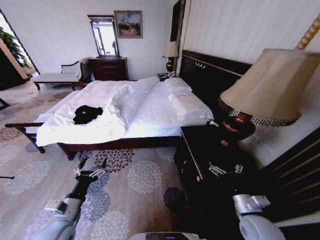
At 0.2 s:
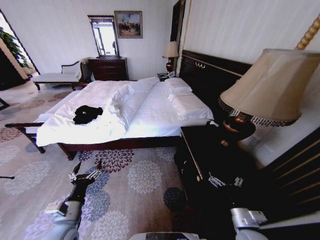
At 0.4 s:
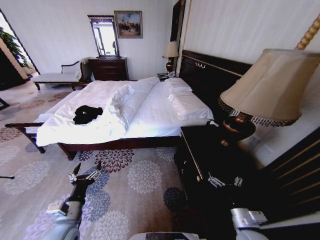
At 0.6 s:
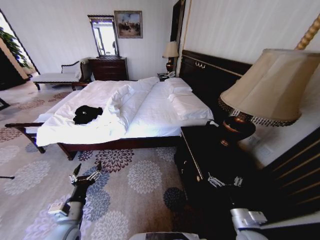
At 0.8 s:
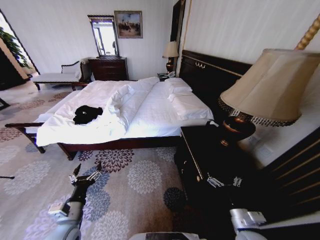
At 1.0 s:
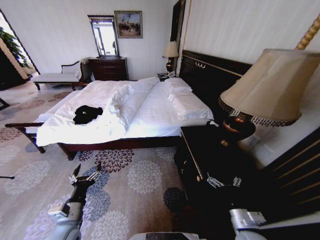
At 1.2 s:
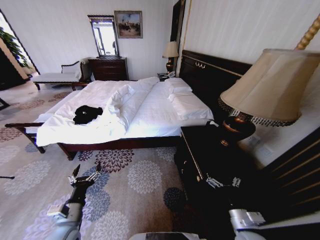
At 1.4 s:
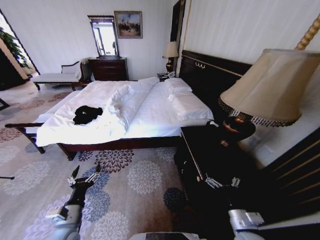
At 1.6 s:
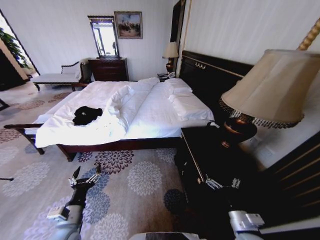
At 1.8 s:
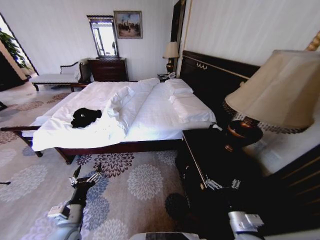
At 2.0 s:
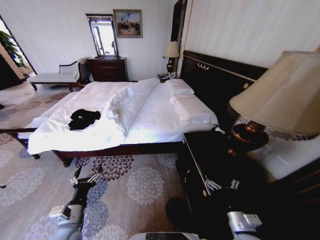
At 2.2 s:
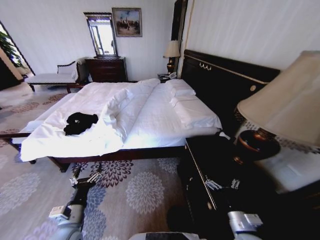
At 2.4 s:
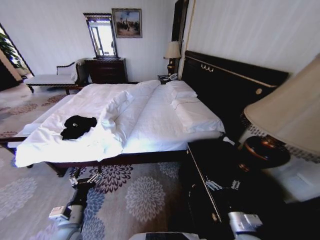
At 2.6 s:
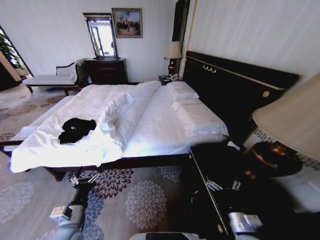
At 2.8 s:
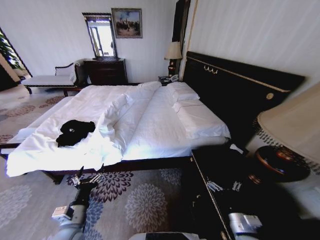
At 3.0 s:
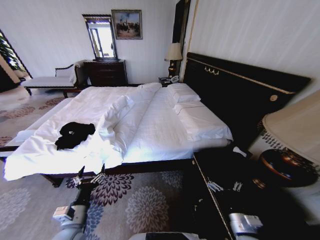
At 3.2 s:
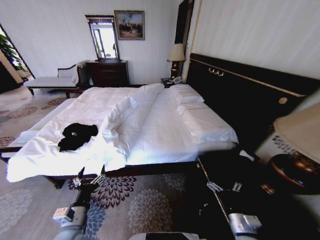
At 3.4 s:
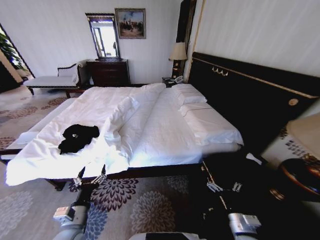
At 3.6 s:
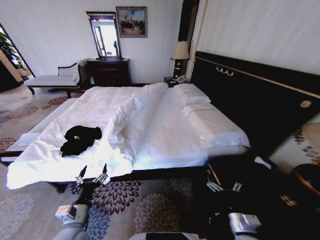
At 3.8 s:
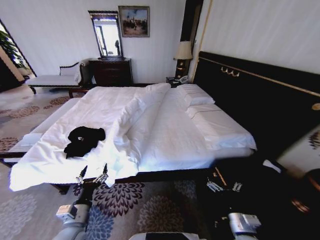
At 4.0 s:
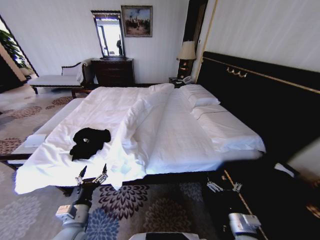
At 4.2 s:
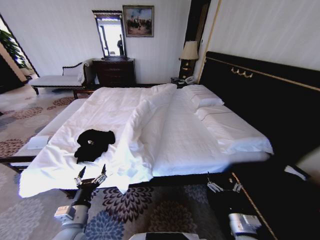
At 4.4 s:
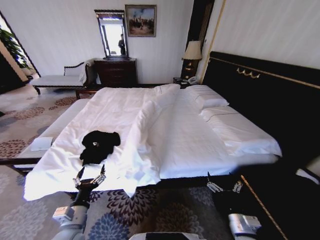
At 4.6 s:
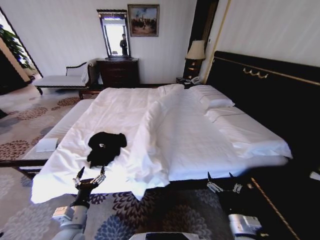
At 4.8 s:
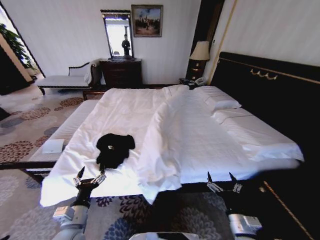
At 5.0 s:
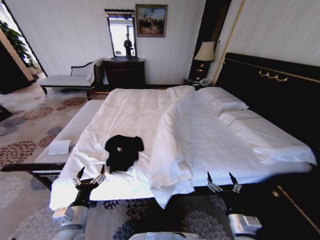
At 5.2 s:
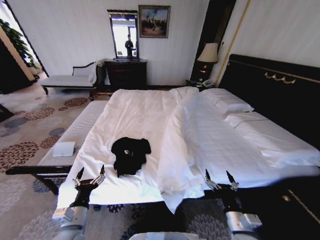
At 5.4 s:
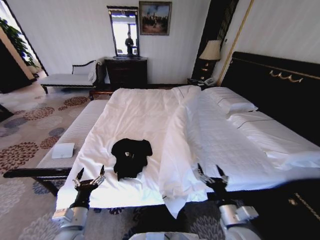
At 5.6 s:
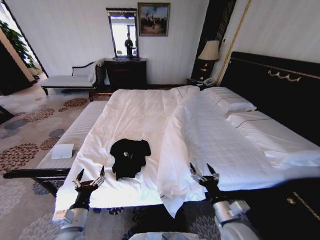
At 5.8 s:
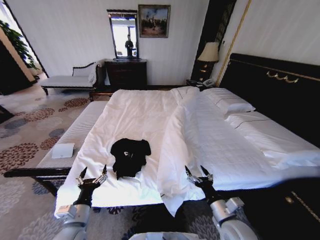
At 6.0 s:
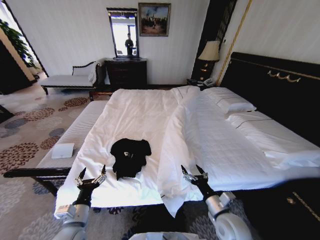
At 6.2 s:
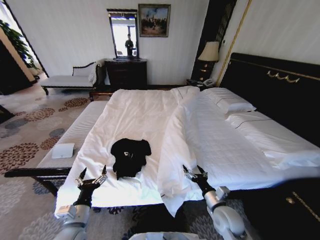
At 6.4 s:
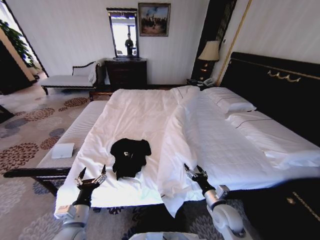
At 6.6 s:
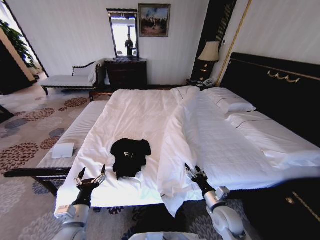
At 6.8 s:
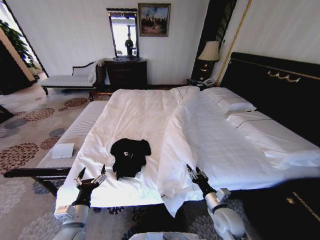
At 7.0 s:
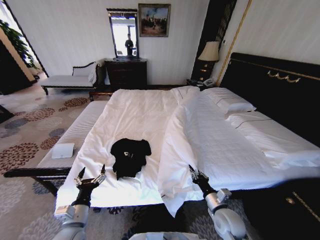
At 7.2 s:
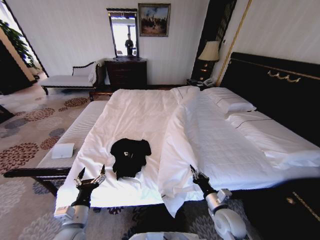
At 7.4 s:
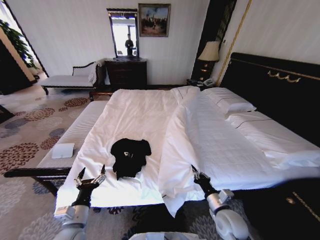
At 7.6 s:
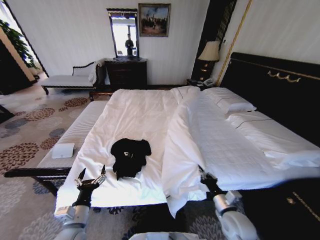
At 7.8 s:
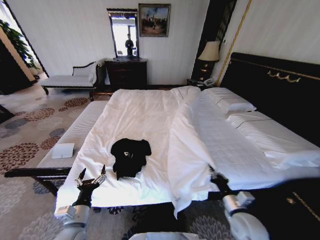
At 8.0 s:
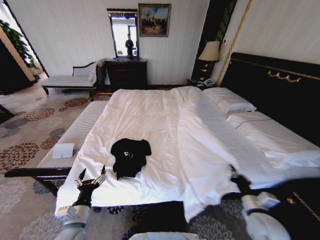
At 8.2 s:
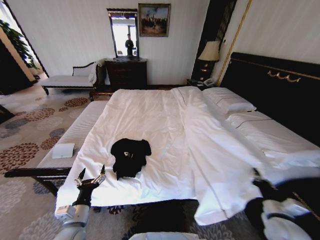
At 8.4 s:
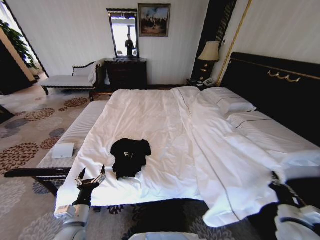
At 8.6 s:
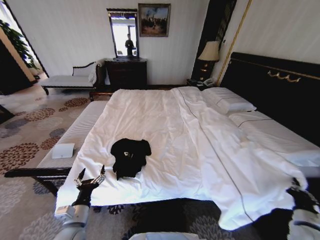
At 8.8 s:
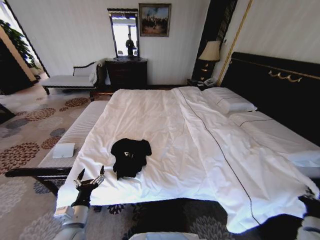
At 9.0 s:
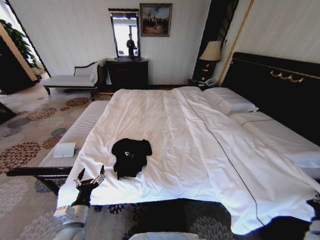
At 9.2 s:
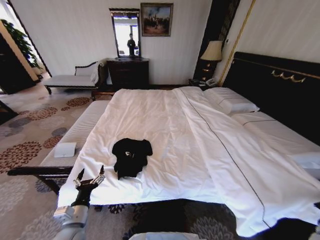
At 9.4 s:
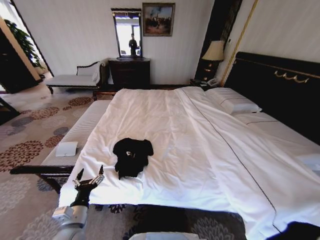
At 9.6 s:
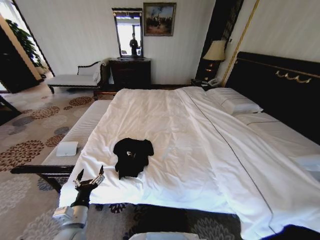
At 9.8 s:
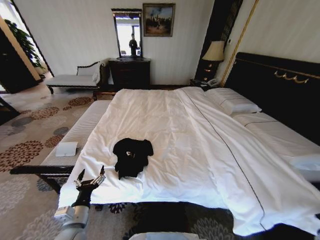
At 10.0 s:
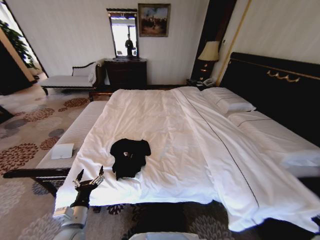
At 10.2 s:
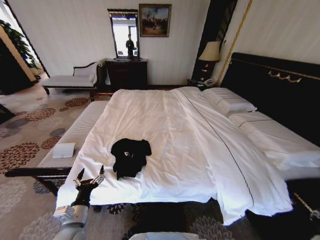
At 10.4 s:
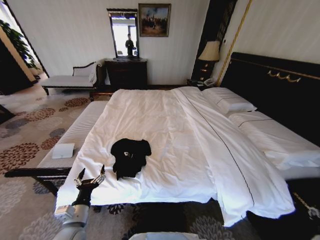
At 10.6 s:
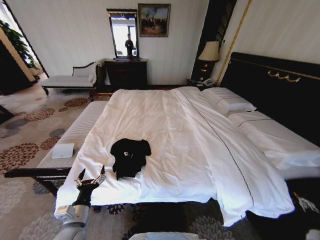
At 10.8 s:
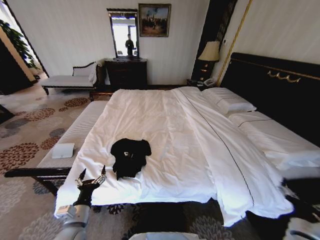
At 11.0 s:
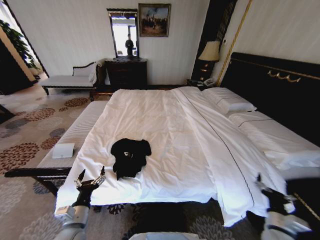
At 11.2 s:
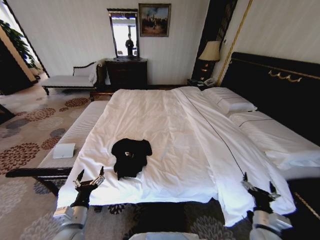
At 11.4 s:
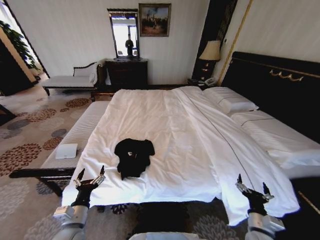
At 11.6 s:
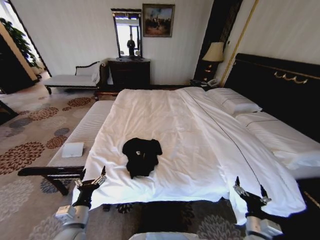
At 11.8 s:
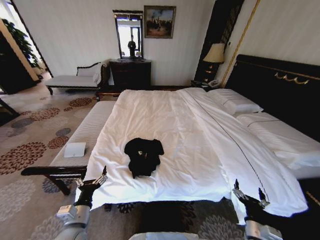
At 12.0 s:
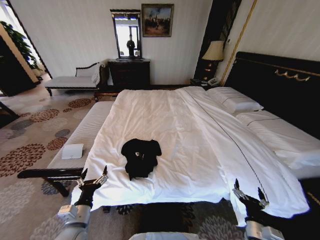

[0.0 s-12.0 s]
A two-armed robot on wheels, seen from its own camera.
Task of the whole recording: Fold the clothes on the bed.
4.4 to 6.0 s: The right gripper is displaced forward by some 5 cm.
6.0 to 7.6 s: The right gripper closes up.
7.6 to 9.0 s: The right gripper is displaced to the right by some 30 cm.
9.0 to 10.4 s: The right gripper goes some 5 cm downward, and opens up.
10.4 to 12.0 s: The right gripper travels to the left by roughly 20 cm, and opens.

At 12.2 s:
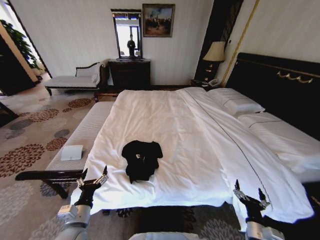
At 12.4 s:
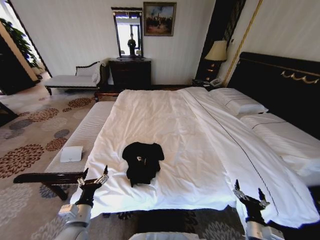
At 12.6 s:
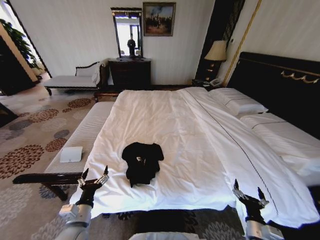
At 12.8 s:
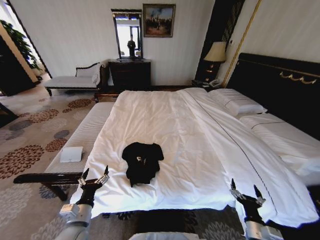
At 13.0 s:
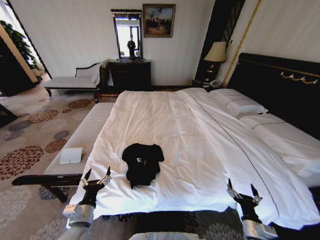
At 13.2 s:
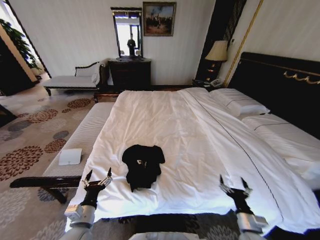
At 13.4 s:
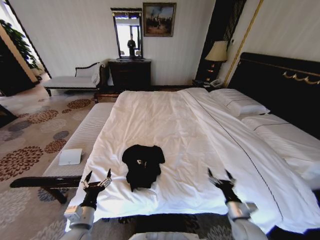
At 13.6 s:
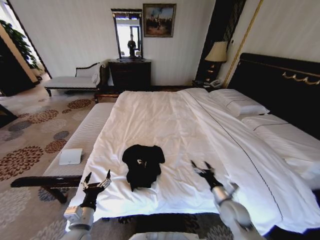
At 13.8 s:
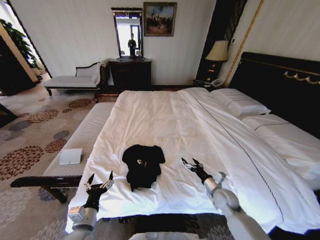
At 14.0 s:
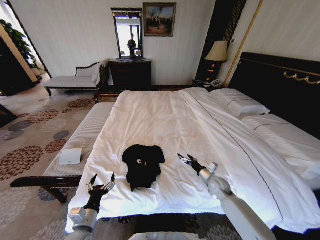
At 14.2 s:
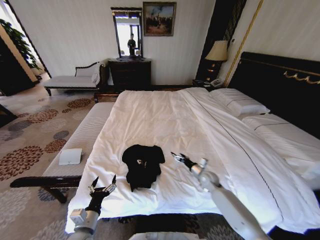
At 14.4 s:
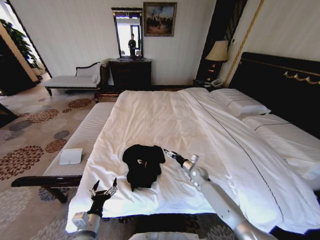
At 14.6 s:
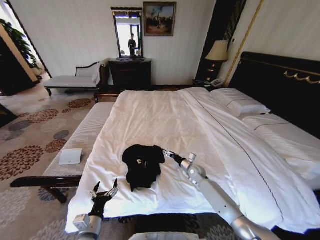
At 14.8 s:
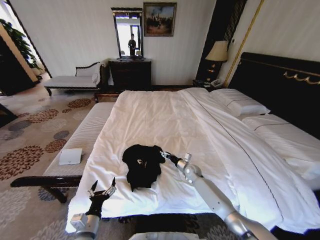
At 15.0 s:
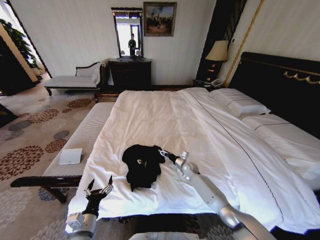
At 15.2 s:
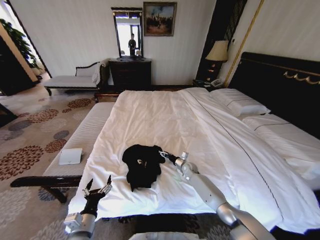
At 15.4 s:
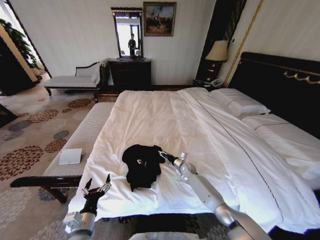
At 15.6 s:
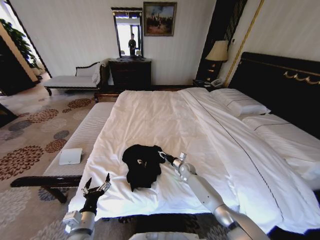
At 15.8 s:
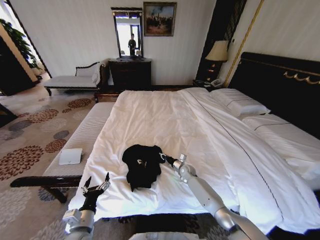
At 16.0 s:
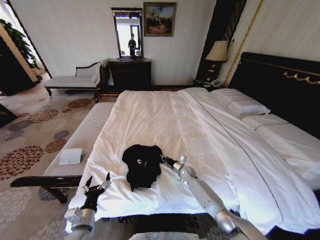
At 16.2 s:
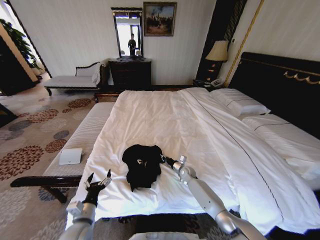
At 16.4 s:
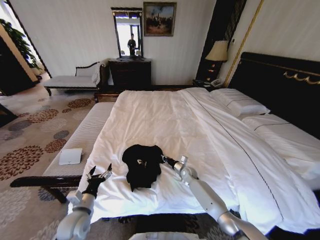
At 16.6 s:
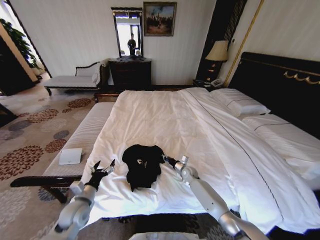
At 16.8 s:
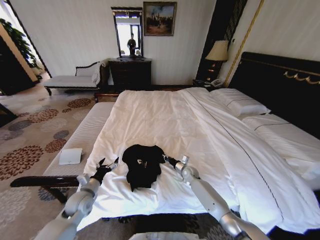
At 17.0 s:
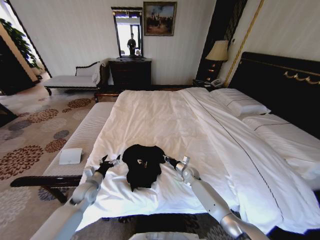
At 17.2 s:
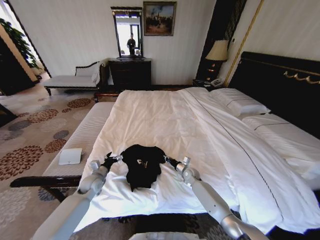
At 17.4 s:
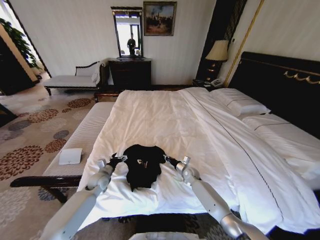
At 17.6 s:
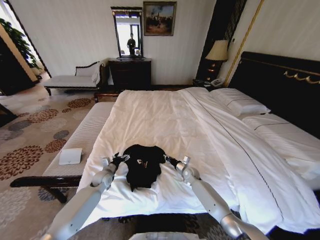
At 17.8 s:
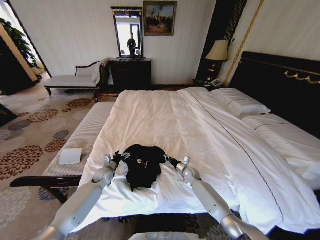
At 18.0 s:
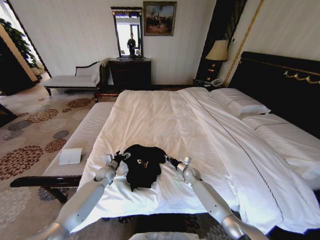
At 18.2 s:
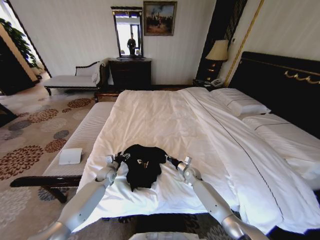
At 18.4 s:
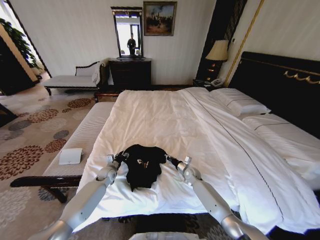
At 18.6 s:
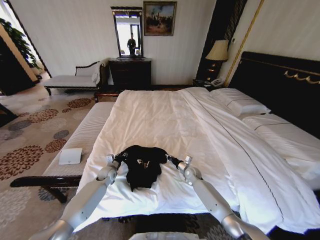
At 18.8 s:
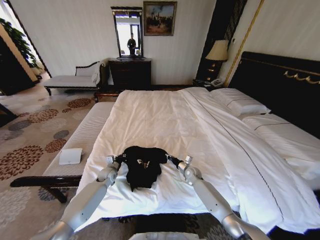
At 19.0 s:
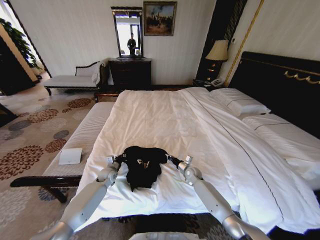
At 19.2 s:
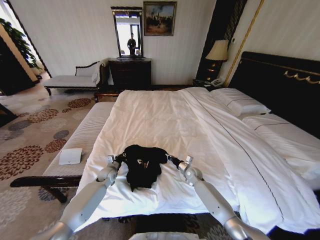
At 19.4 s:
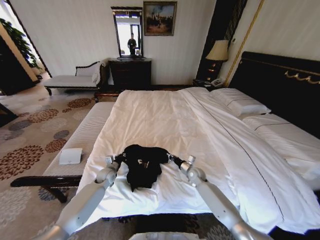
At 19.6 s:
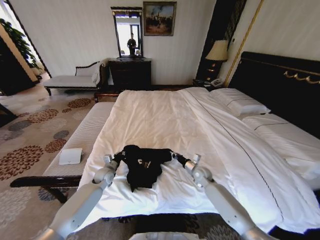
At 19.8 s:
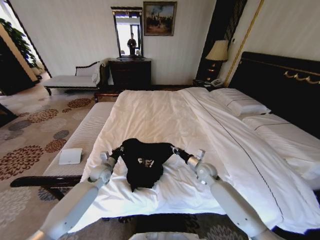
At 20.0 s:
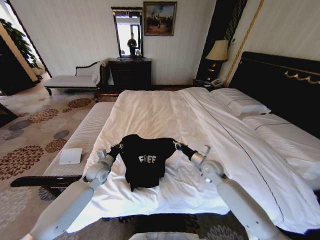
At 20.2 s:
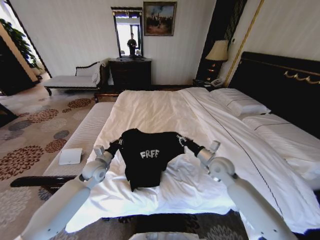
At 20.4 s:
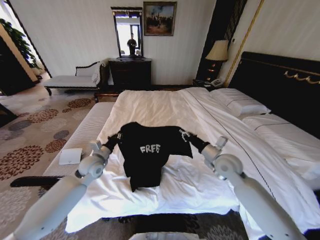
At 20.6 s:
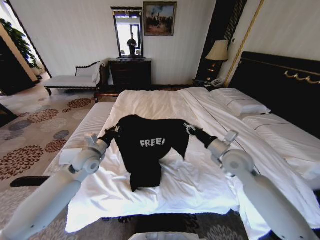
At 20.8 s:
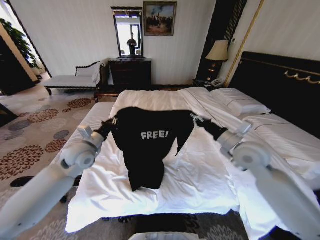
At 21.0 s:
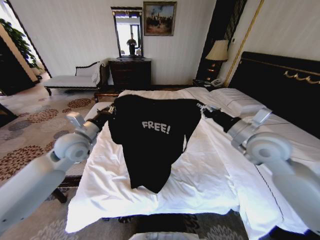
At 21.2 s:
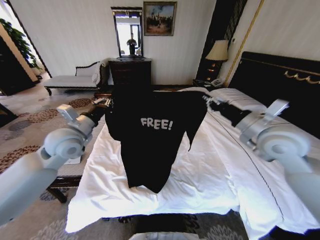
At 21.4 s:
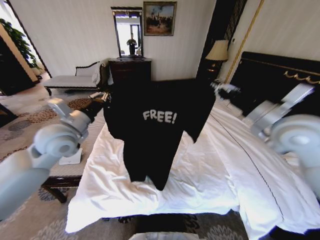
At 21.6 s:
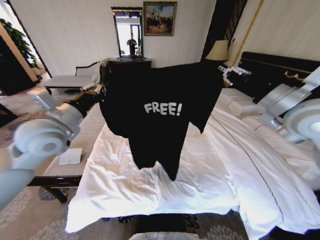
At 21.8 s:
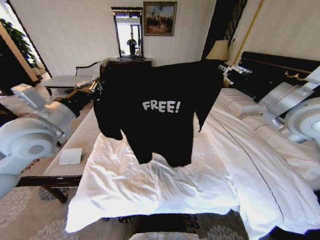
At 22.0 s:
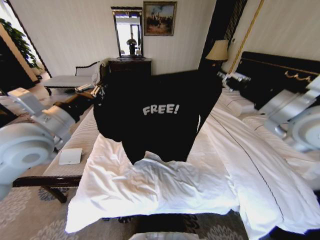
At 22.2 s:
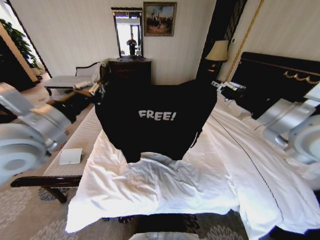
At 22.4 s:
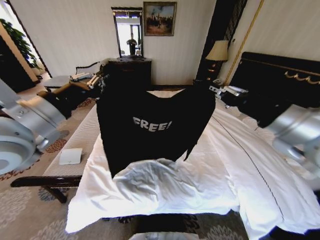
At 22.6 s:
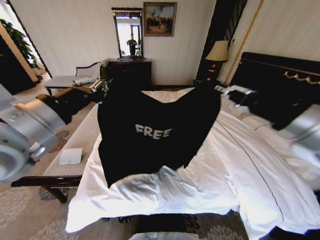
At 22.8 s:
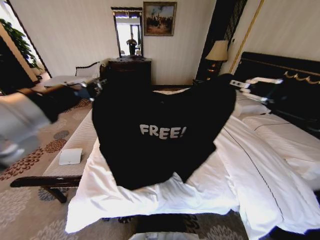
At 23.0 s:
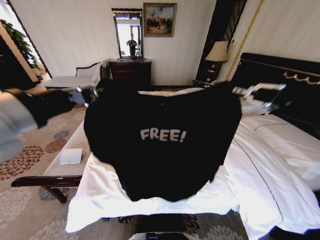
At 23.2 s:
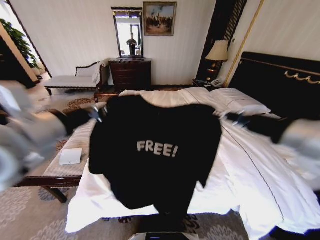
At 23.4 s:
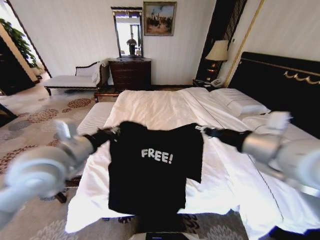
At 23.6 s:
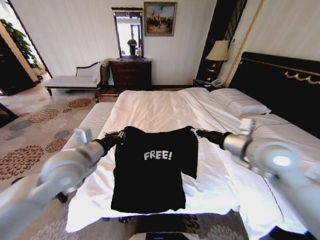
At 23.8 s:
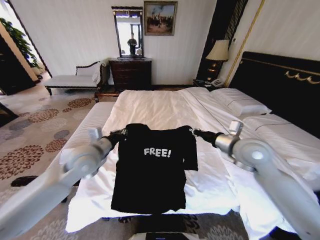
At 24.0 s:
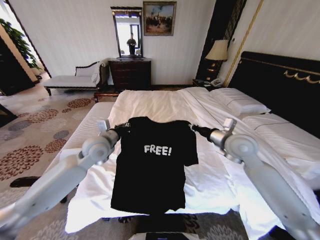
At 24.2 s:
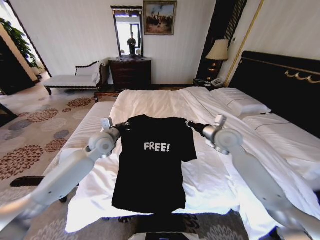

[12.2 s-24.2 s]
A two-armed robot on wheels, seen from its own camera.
Task of the whole recording: Fold the clothes on the bed.
12.2 to 13.8 s: The right gripper travels forward by approximately 20 cm.
13.8 to 15.2 s: The right gripper shifts about 20 cm forward, to the left and downward.
15.2 to 16.6 s: The left gripper travels forward and to the left by about 10 cm. Meanwhile the right gripper closes.
16.6 to 18.2 s: The left gripper is displaced forward and downward by approximately 20 cm.
18.2 to 19.8 s: The right gripper is displaced upward by roughly 10 cm. Meanwhile the left gripper moves upward, about 5 cm, and closes its fingers.
19.8 to 21.2 s: Both grippers move upward, approximately 30 cm.
21.2 to 22.6 s: Both grippers move backward and upward, approximately 15 cm.
22.6 to 24.2 s: The left gripper is displaced downward and forward by roughly 30 cm. The right gripper goes approximately 30 cm forward and downward.
